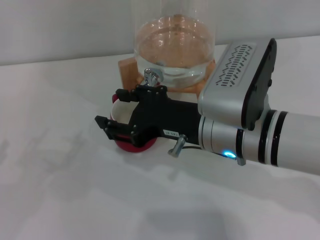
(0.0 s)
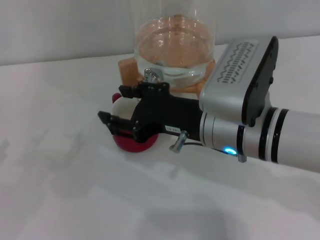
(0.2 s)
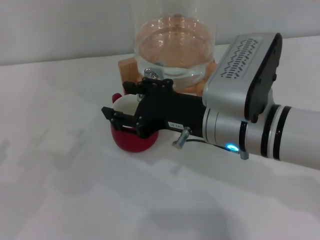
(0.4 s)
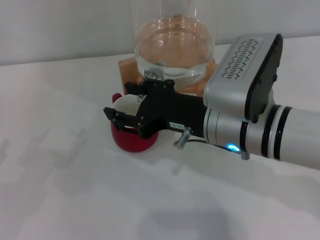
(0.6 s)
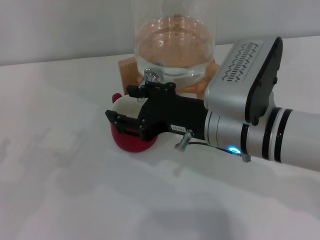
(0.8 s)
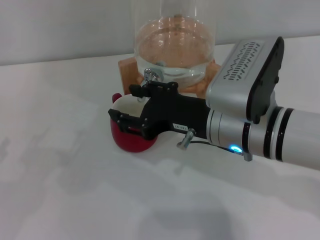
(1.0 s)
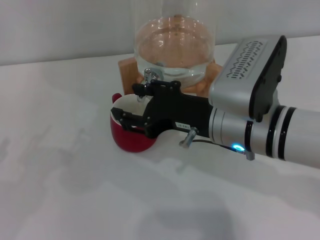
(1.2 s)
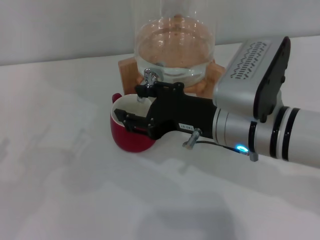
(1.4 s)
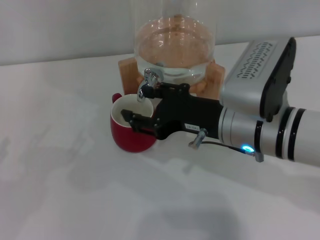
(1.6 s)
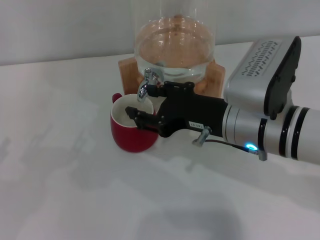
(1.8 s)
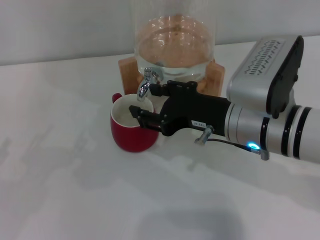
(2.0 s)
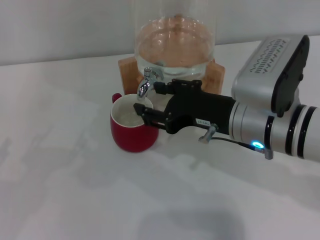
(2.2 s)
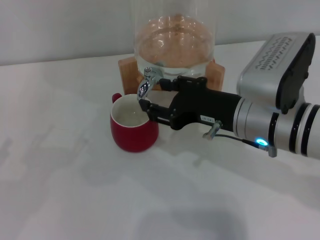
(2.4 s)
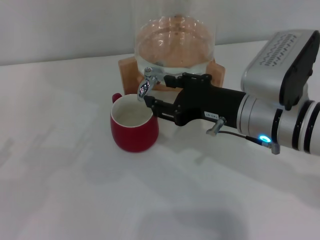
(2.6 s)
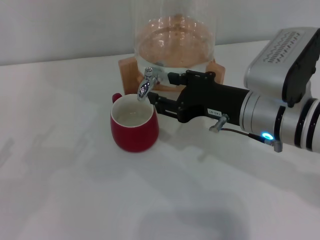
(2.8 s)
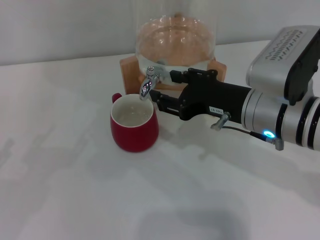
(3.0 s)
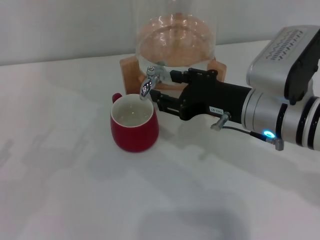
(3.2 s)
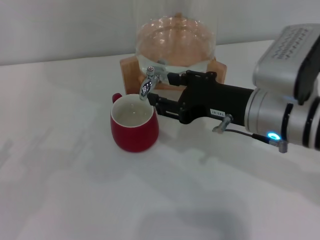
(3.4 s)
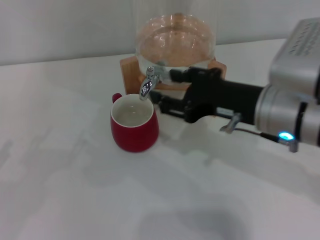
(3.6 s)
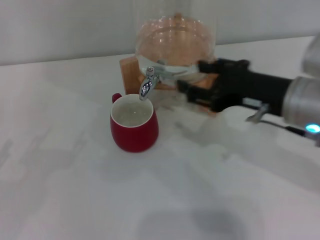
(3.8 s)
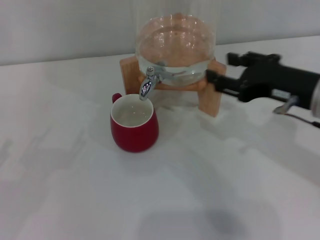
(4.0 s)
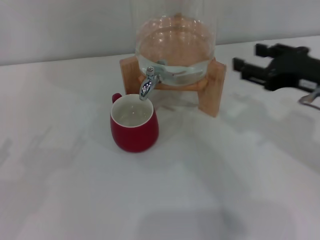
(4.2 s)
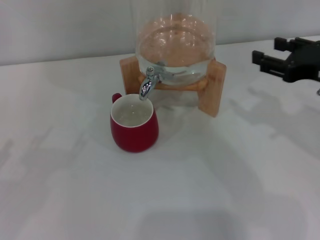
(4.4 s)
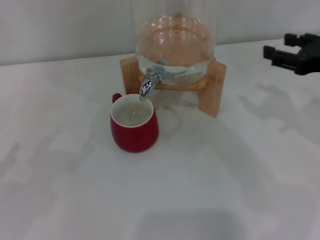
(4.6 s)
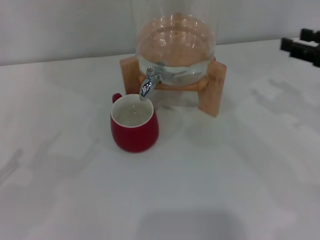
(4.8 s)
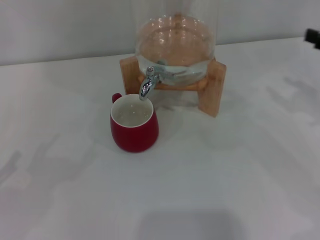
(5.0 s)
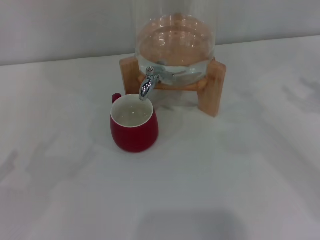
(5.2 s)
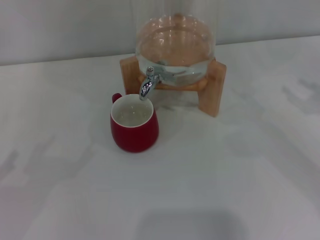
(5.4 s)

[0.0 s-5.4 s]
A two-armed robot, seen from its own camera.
Task of the whole recording: the left gripper pick up the red cup and place it horizontally under the faucet, the right gripper turn on the faucet to fill the cup, and then turn off the faucet.
Step, 0.0 to 3.4 s: Close the dispenser valve with the right gripper.
0.0 to 2.8 s: The grippers stay close to where they were, moving slightly.
2.8 to 4.0 s: The right gripper shifts some 5 cm to the right.
4.0 to 5.4 s: The right gripper heads to the right, covering roughly 15 cm.

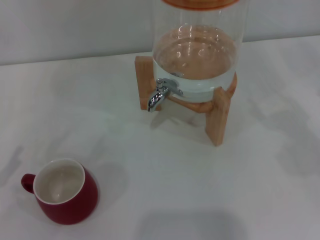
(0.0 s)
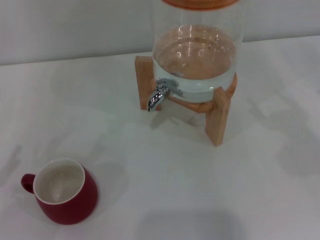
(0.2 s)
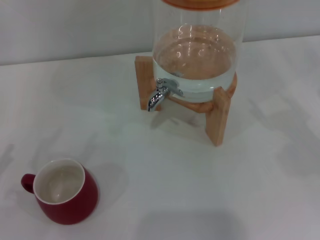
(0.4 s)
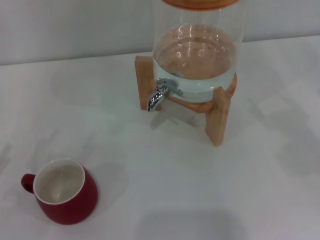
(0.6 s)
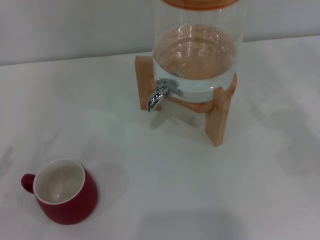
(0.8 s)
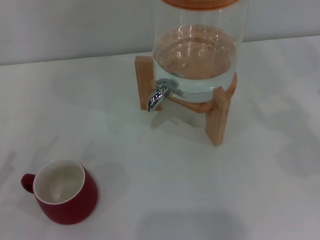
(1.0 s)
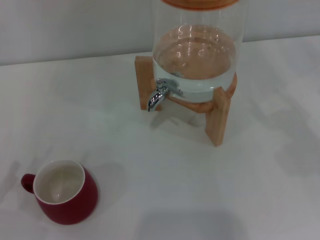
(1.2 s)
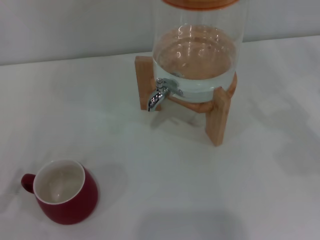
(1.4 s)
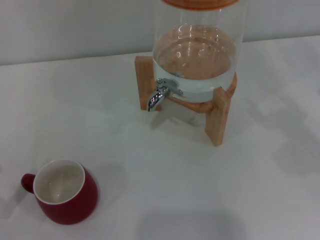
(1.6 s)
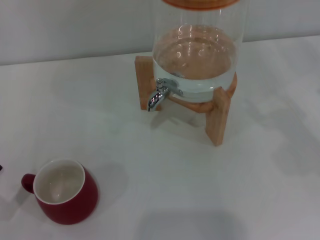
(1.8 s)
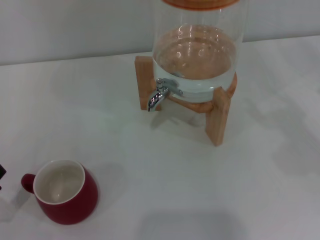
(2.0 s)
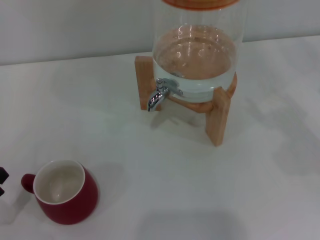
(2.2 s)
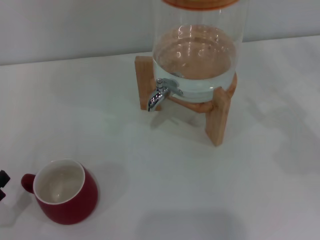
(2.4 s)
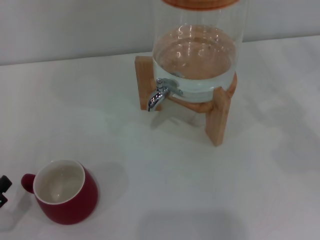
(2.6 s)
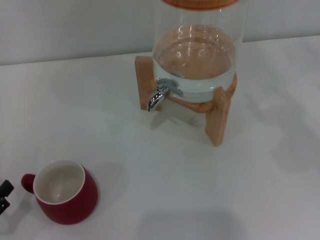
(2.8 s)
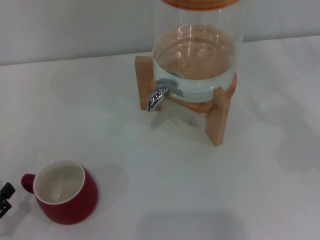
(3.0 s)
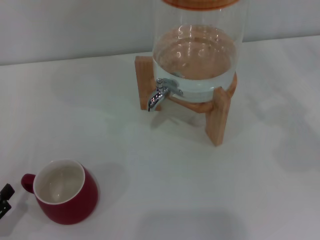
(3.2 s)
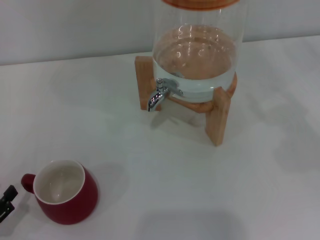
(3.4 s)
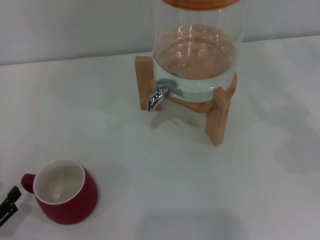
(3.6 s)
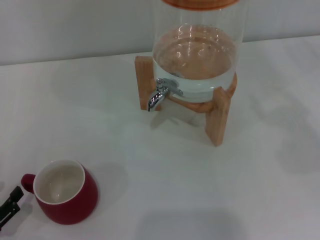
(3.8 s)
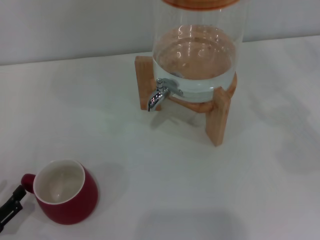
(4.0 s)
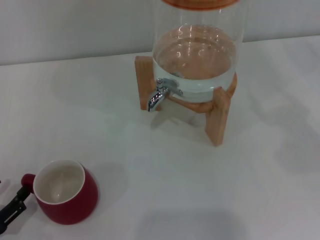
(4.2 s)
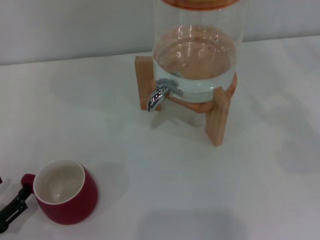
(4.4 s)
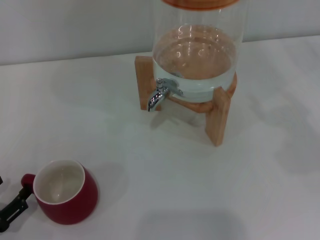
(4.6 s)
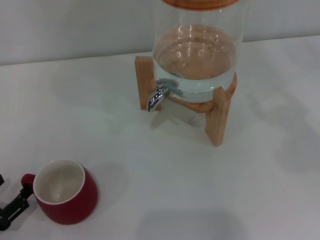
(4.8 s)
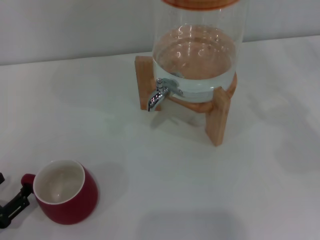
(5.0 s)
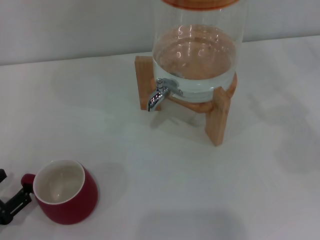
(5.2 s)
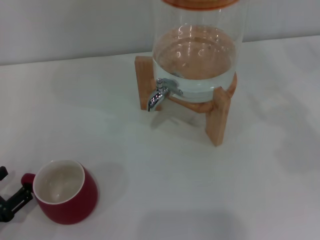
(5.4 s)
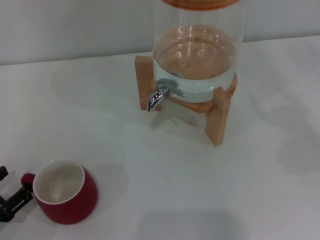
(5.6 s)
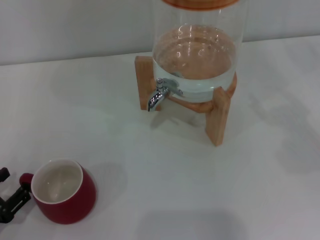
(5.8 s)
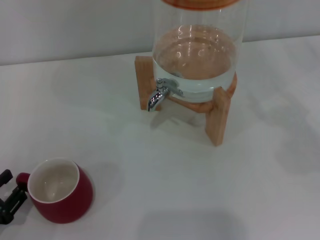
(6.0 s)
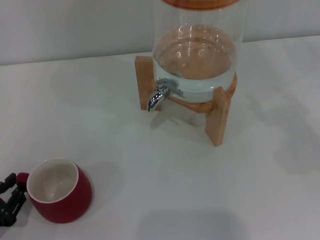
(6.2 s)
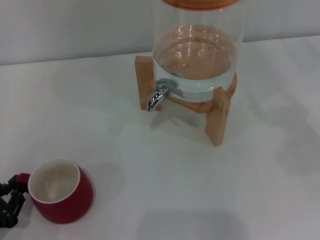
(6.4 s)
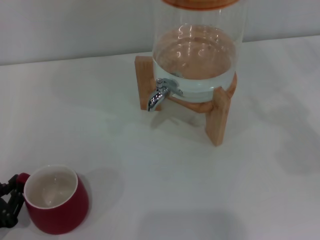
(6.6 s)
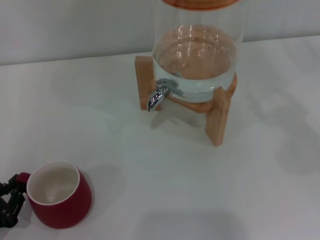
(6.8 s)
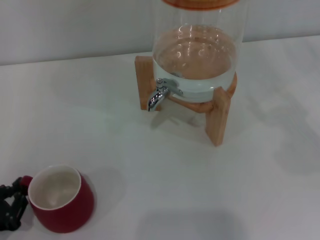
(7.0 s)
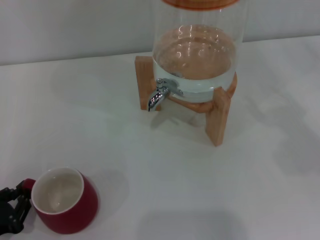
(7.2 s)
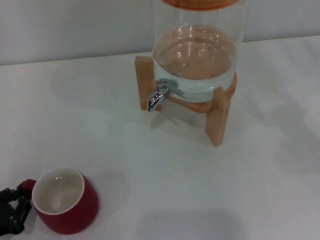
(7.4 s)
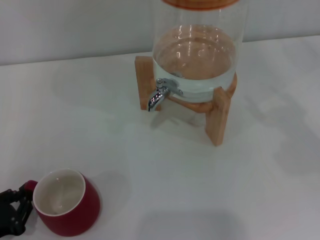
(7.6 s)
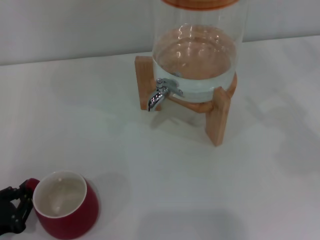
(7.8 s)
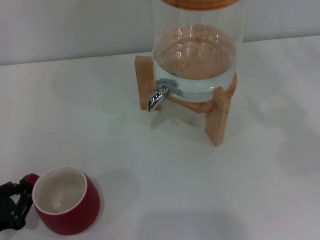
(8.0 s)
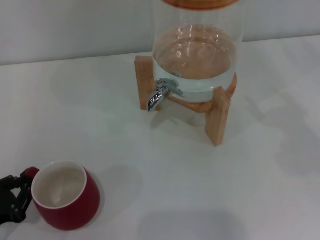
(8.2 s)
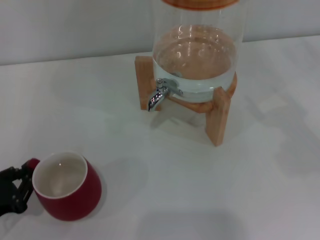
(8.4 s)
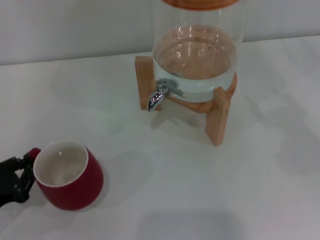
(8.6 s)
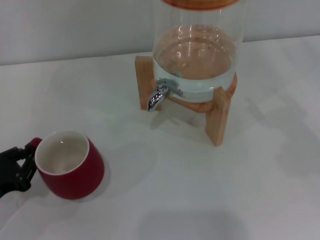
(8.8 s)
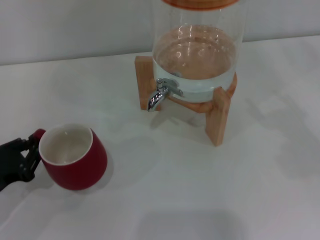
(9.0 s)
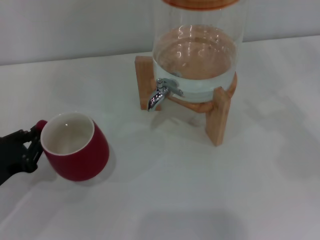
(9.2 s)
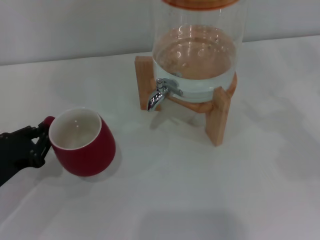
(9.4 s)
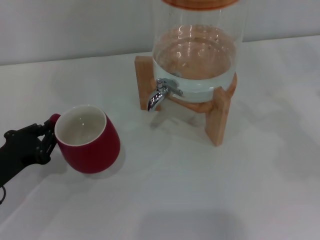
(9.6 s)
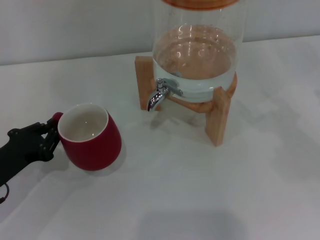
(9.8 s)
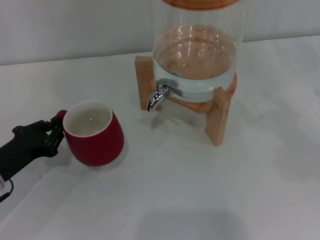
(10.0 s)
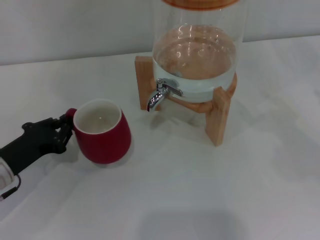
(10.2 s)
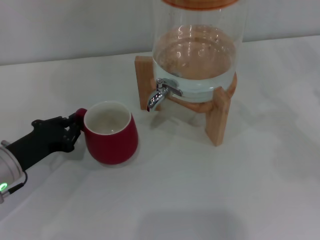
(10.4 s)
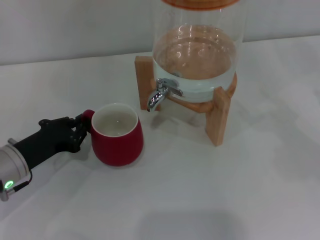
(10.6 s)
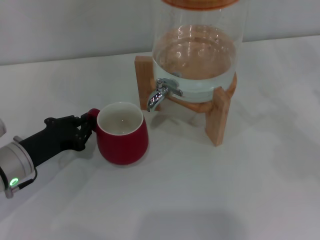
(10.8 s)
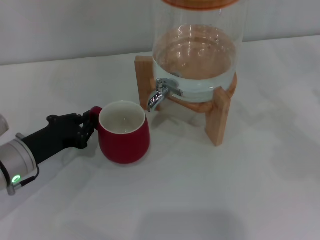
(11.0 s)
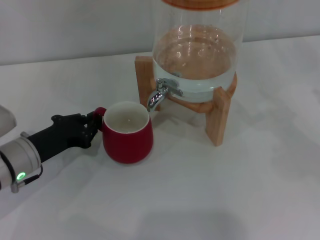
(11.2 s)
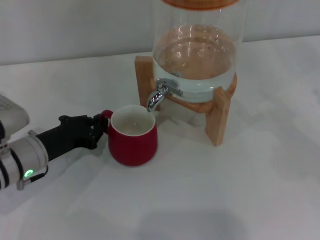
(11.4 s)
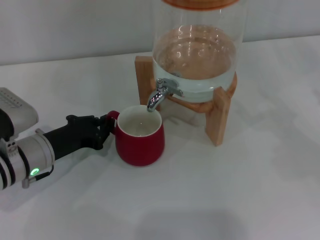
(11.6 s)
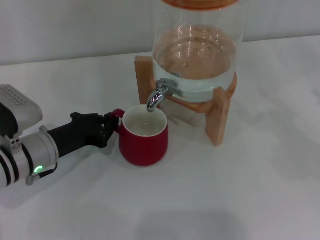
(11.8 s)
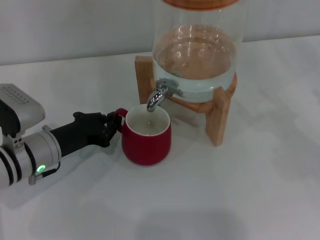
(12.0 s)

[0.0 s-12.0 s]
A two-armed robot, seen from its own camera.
Task of the whole recording: the left gripper pick up the red cup and place it horizontally under the faucet, the right gripper turn on the faucet to fill the cup, and then turn off the faucet.
3.0 to 6.0 s: The grippers stay close to where they were, moving slightly.
6.0 to 7.6 s: The left gripper closes its fingers.
7.6 to 9.0 s: The left gripper heads forward, covering about 5 cm.
9.0 to 10.4 s: The left gripper moves forward and to the right, some 10 cm.
10.4 to 12.0 s: The left gripper goes some 5 cm to the right.

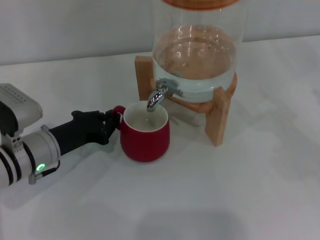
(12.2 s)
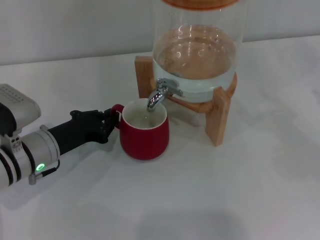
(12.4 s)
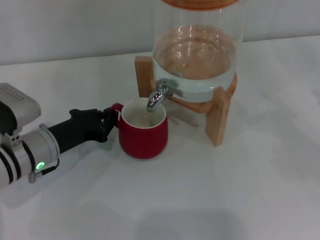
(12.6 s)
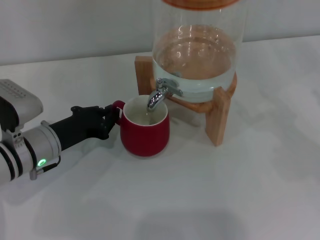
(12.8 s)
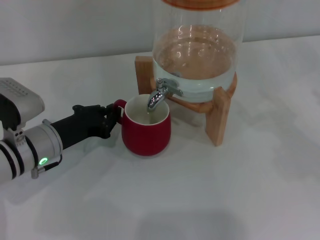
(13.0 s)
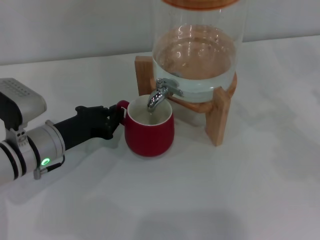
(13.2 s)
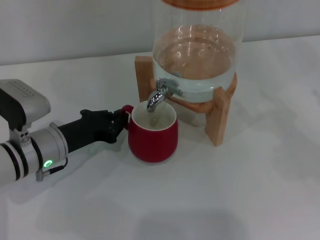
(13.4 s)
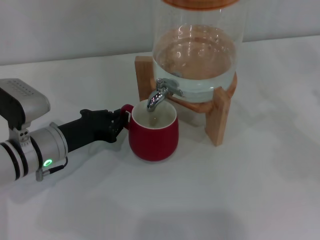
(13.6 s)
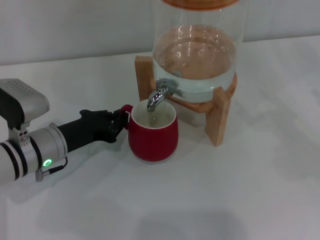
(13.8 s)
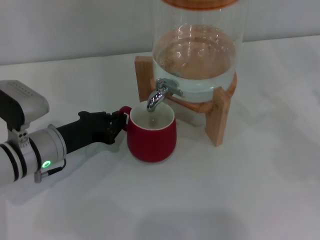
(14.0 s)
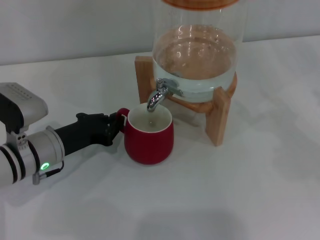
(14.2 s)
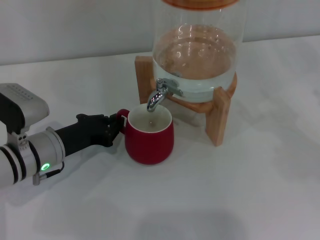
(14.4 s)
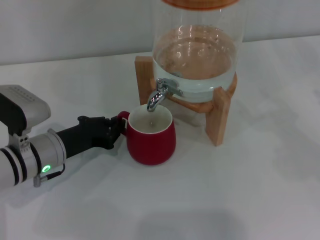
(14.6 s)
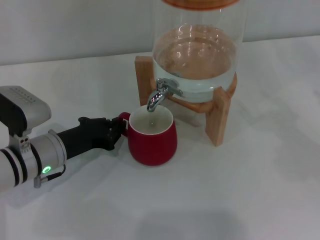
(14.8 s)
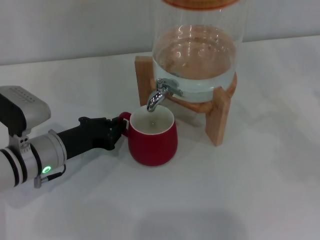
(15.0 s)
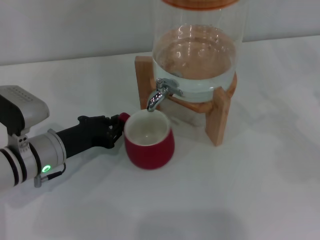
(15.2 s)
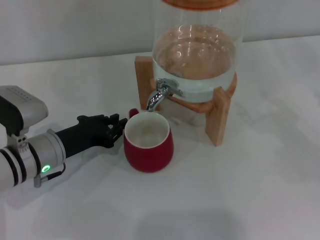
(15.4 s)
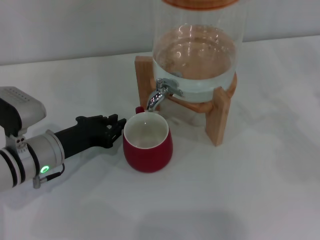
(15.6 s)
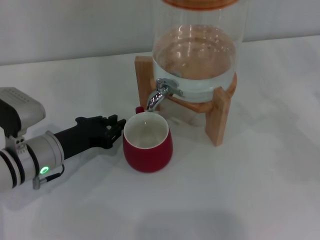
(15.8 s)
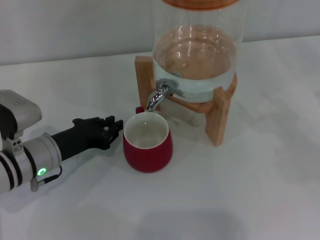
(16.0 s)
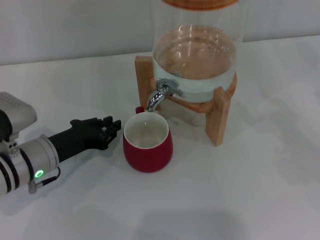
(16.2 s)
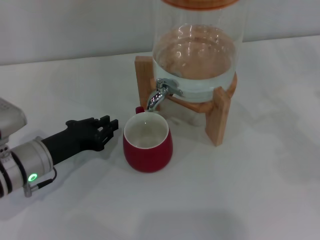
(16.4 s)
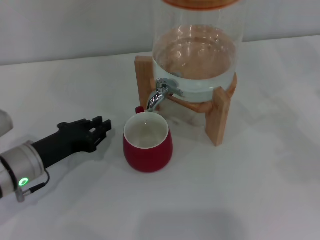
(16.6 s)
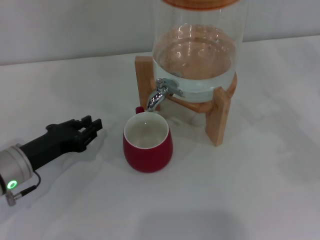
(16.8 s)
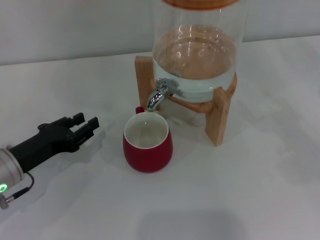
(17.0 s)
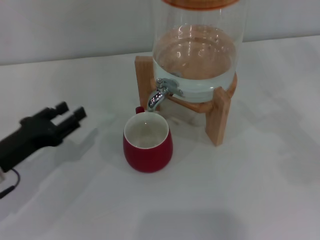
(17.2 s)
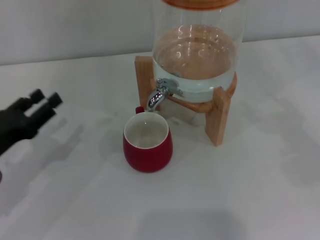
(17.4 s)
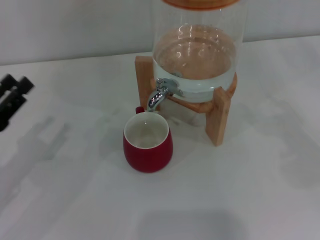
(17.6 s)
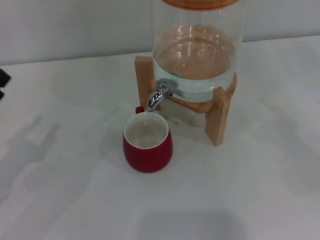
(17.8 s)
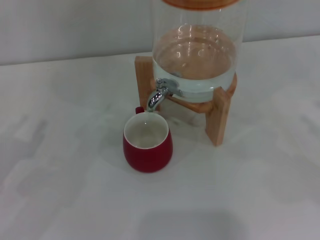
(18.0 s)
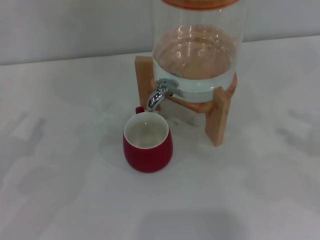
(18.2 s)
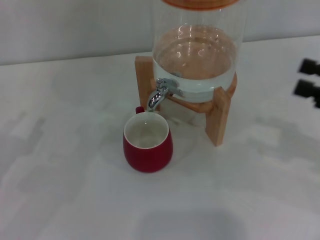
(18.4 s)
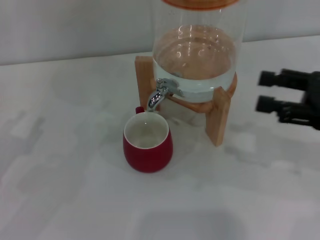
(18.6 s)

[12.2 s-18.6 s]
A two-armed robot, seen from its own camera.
Task of the whole recording: the left gripper pick up the red cup and place it horizontally under the faucet, the right gripper turn on the faucet to fill the cup, and then turn off the faucet.
Step, 12.2 to 16.0 s: Move the cup beneath the water dispenser nozzle with the left gripper.
12.2 to 15.4 s: Both grippers stay about where they are.
15.4 to 17.0 s: The left gripper goes approximately 5 cm to the left.
17.0 to 18.6 s: The right gripper goes about 10 cm to the left. Meanwhile the left gripper is displaced to the left and upward by roughly 10 cm, and opens its fingers.
